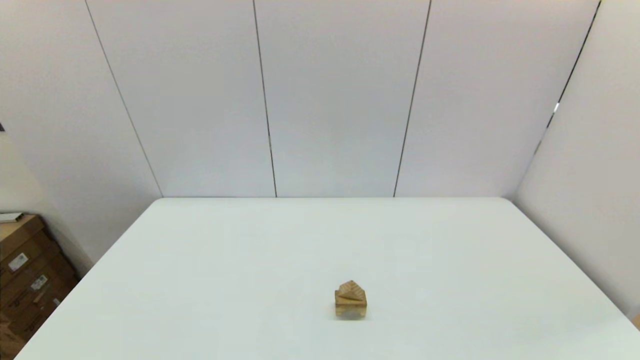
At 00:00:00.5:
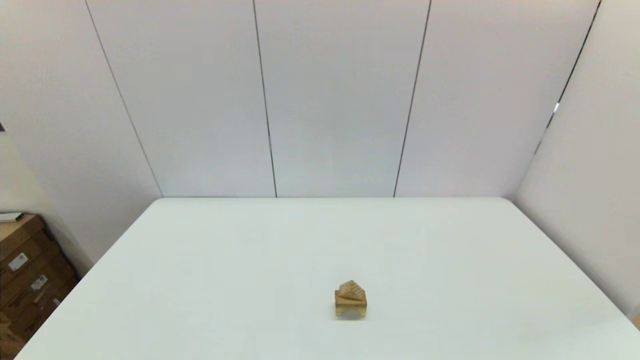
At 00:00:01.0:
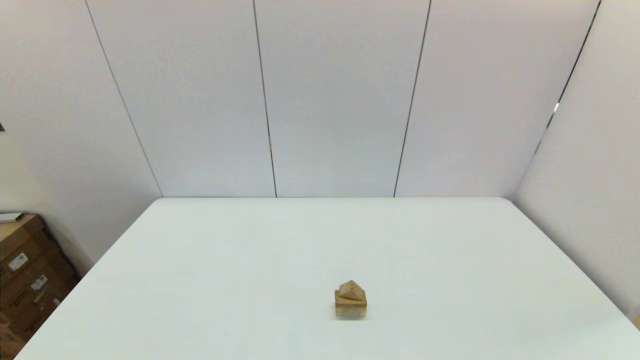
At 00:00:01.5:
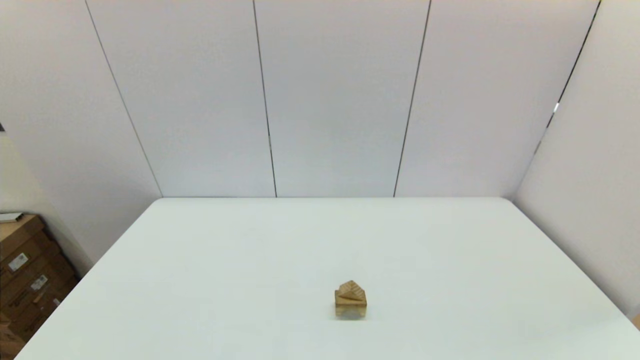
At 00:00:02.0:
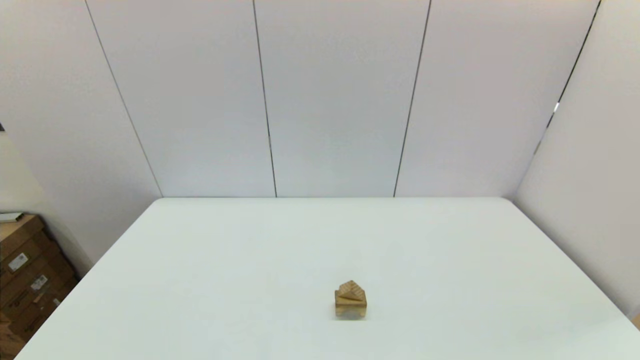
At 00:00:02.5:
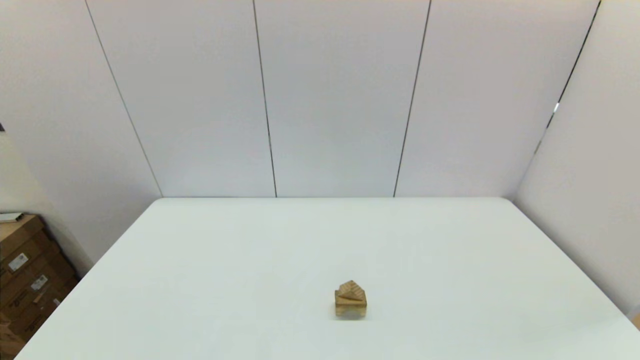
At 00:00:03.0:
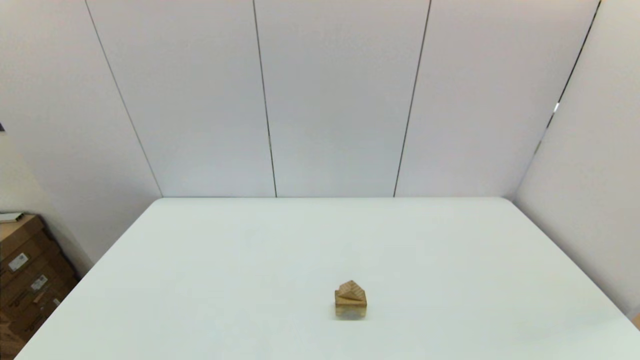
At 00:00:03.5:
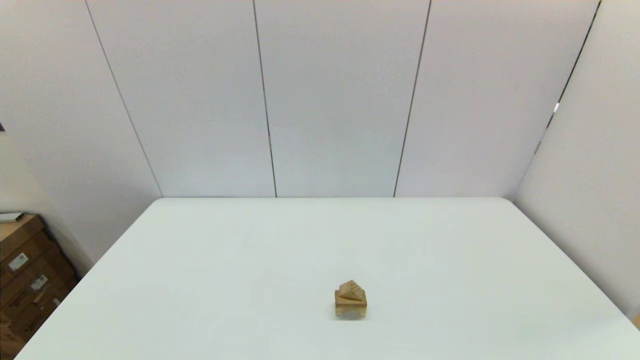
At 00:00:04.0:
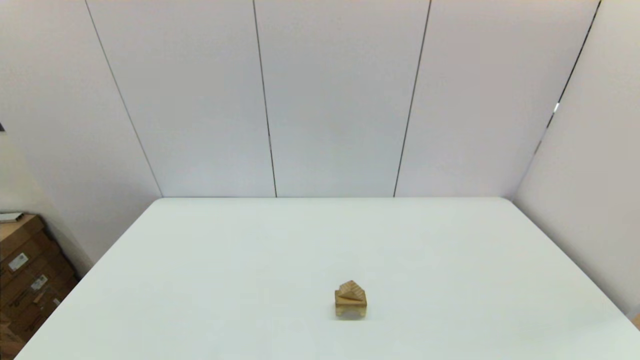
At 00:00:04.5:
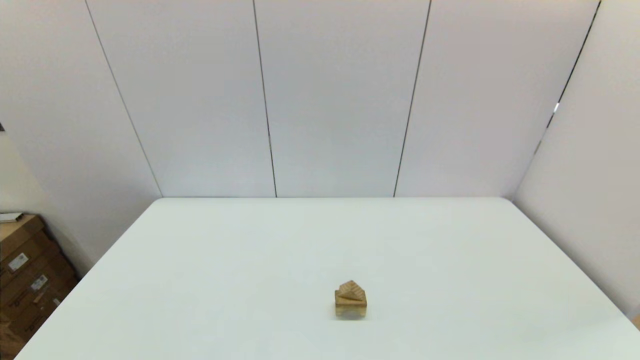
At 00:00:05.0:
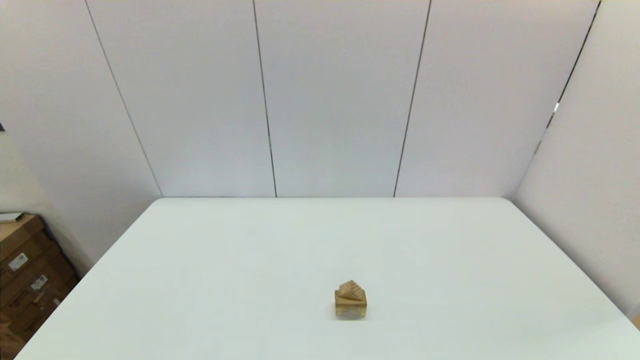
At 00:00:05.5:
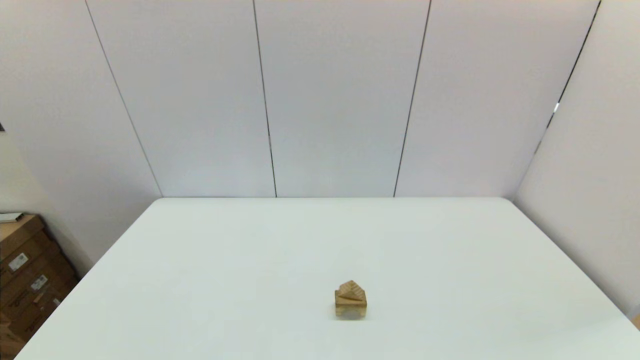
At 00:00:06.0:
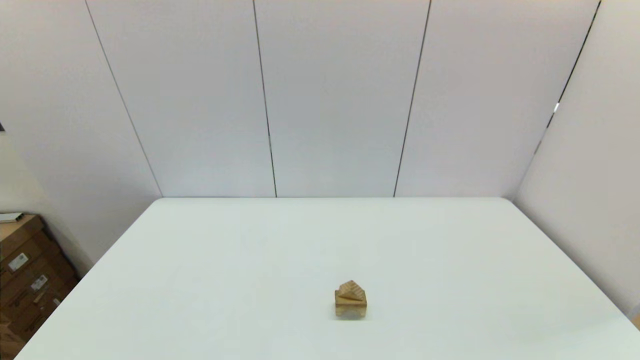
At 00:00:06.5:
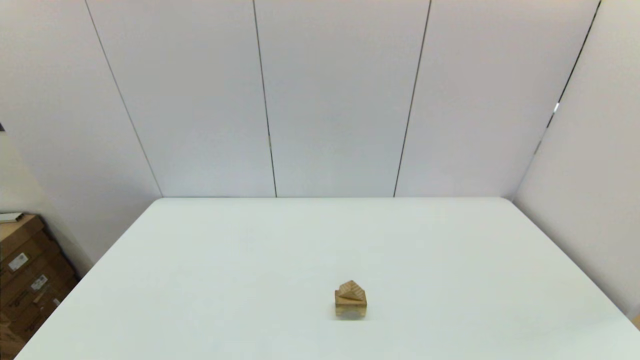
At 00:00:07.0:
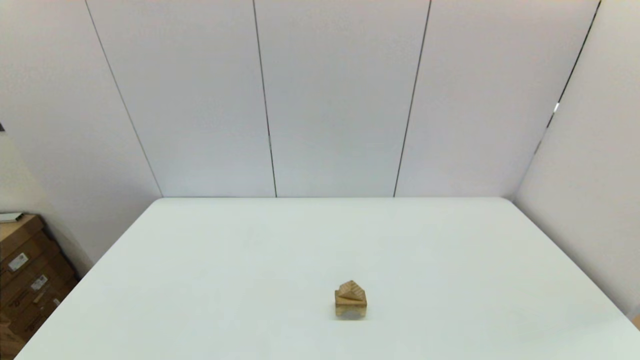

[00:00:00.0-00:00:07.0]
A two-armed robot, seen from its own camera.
Task of the whole recording: place the arched building blocks in the center of the table, set up the rectangular building blocks, and then set up the triangular building blocks.
00:00:02.0 to 00:00:07.0: Both grippers stay about where they are.

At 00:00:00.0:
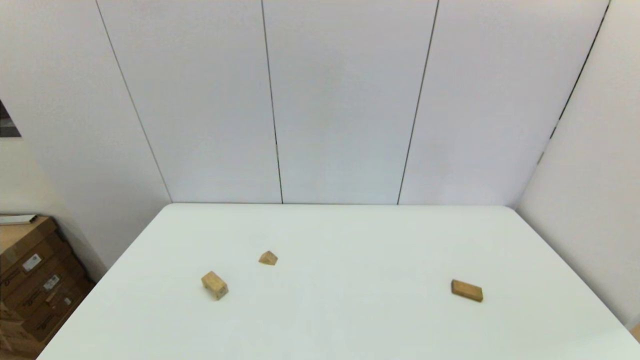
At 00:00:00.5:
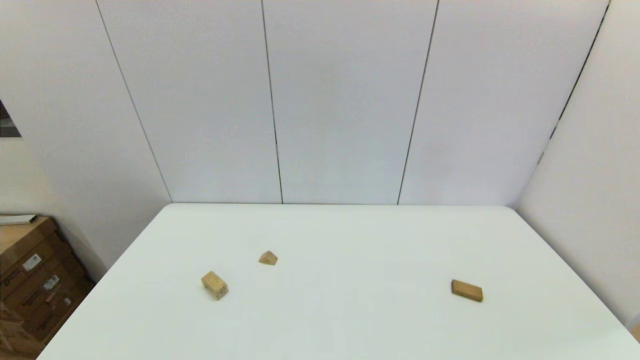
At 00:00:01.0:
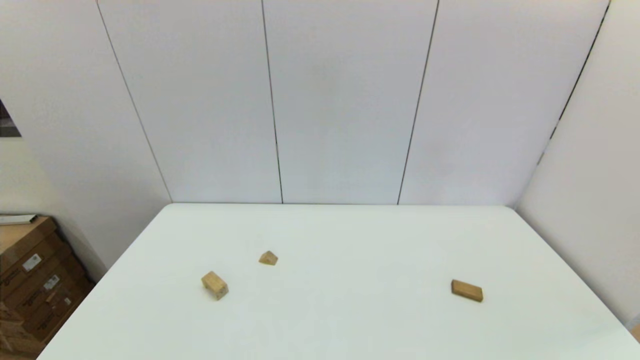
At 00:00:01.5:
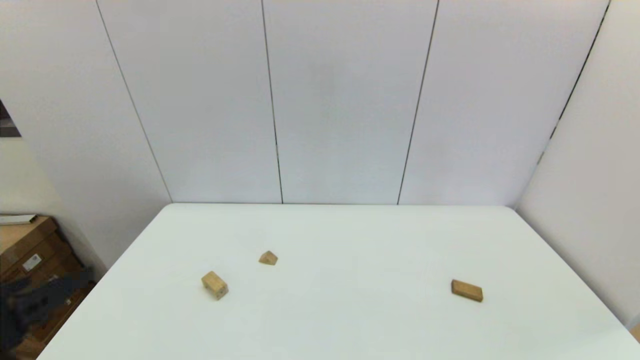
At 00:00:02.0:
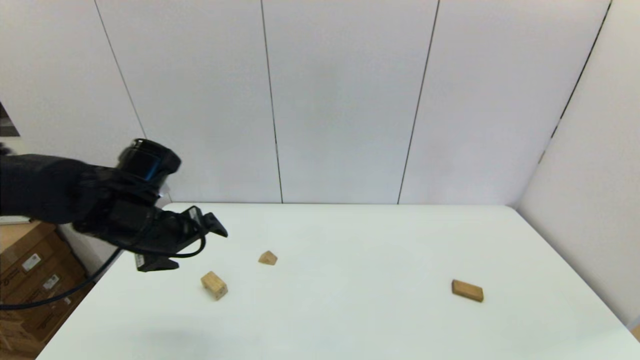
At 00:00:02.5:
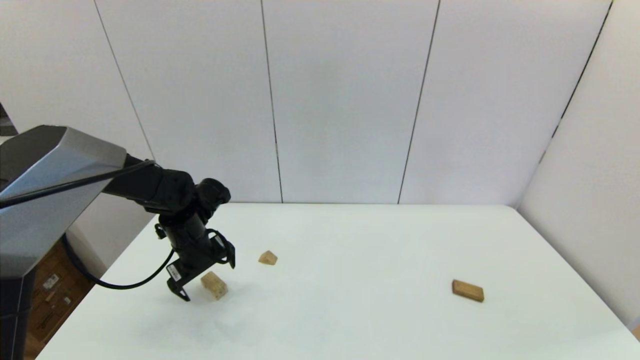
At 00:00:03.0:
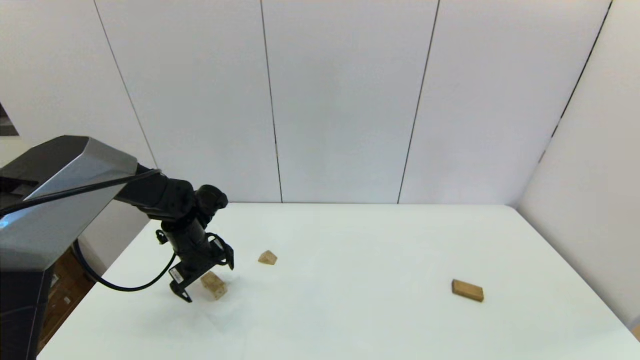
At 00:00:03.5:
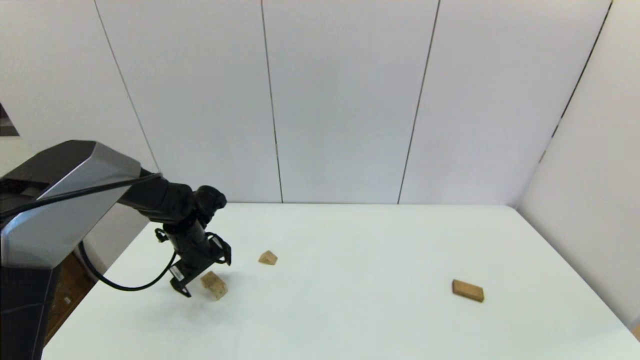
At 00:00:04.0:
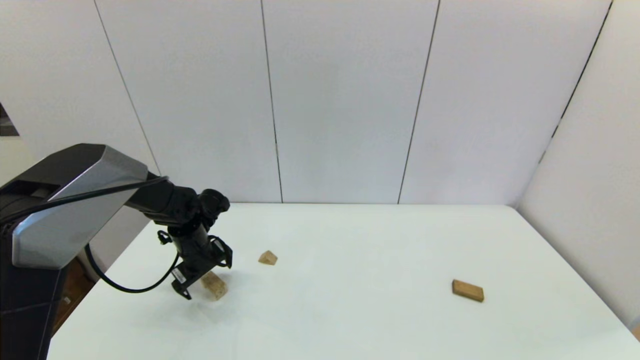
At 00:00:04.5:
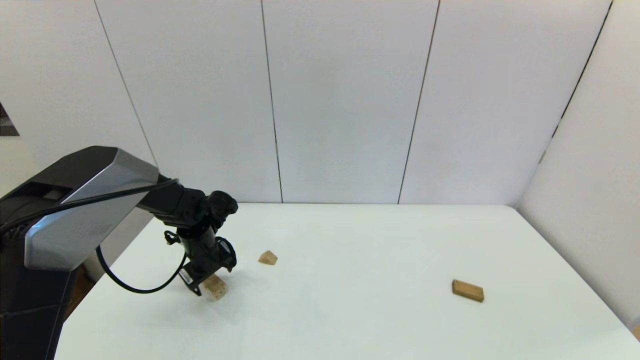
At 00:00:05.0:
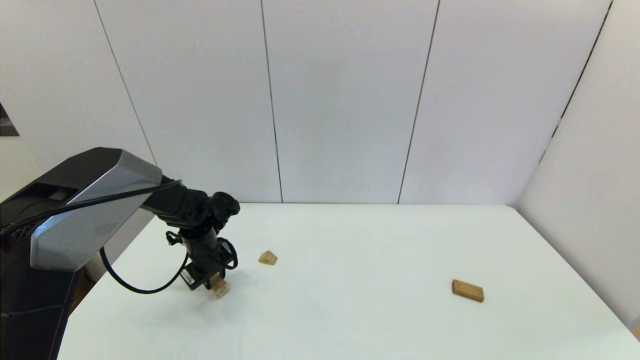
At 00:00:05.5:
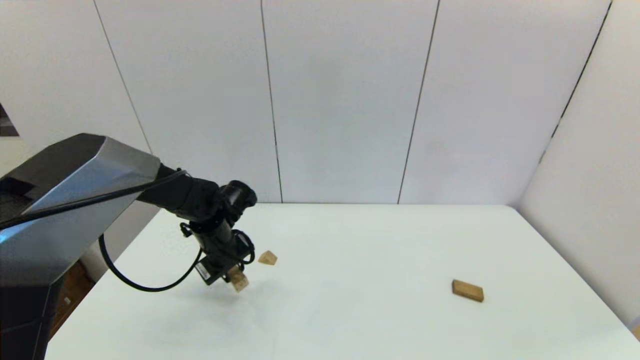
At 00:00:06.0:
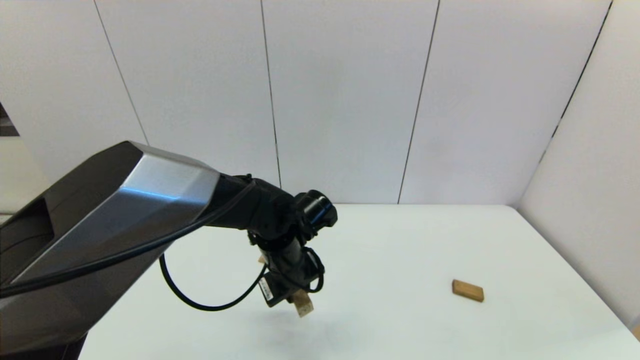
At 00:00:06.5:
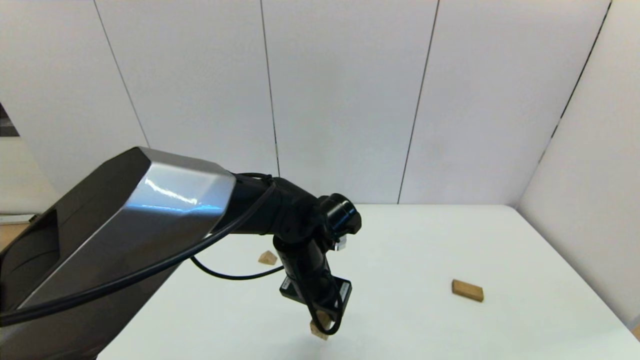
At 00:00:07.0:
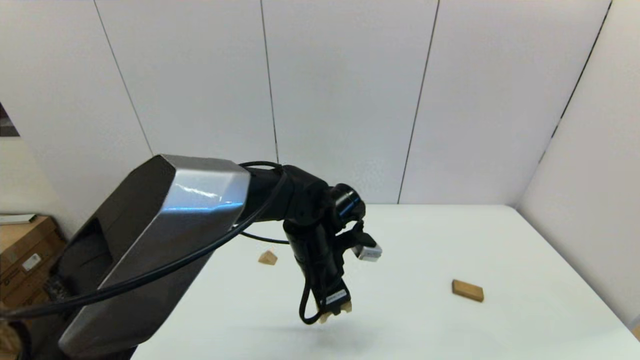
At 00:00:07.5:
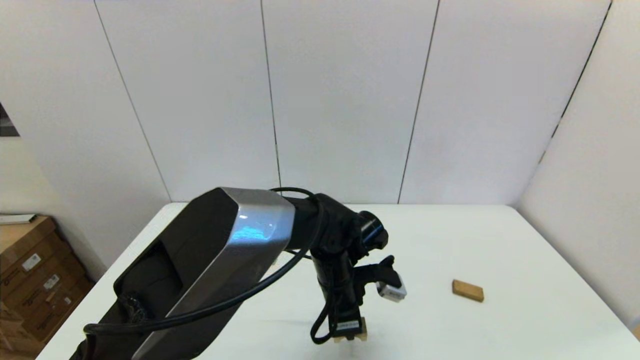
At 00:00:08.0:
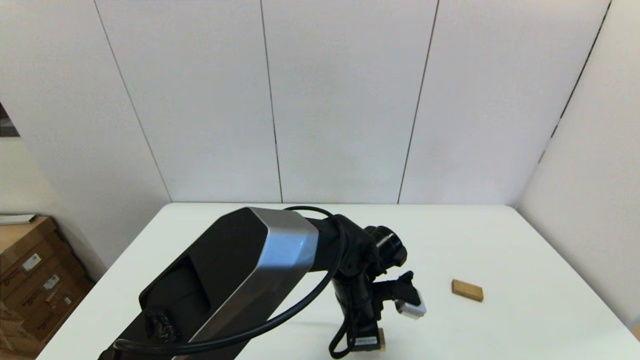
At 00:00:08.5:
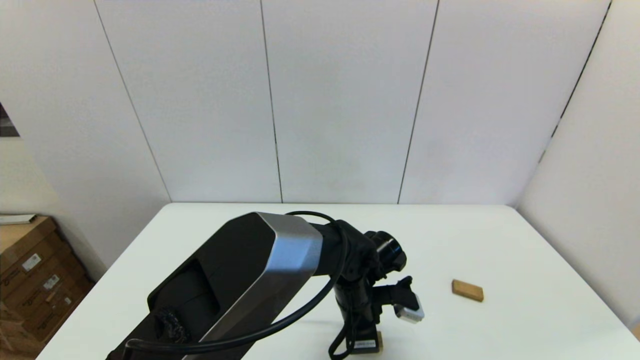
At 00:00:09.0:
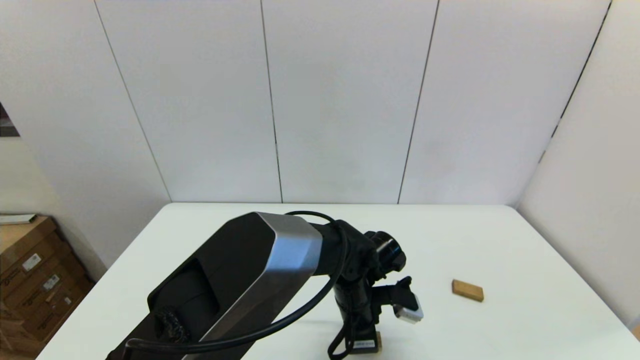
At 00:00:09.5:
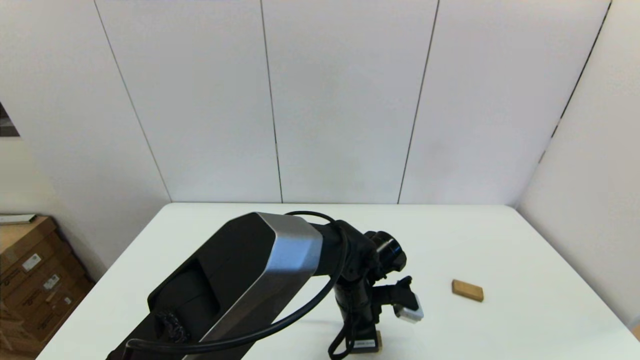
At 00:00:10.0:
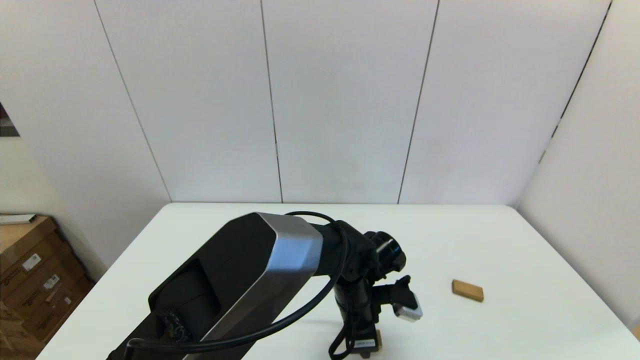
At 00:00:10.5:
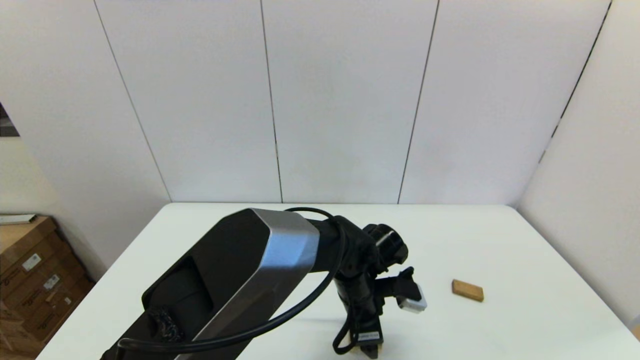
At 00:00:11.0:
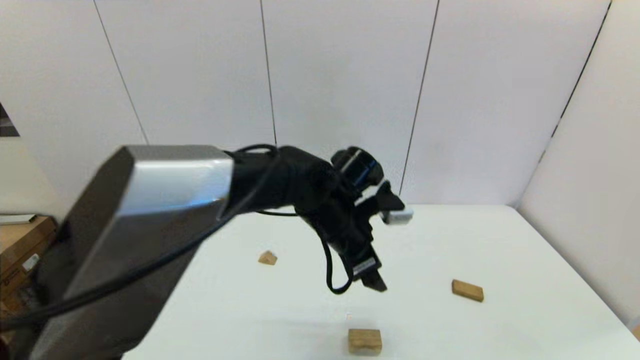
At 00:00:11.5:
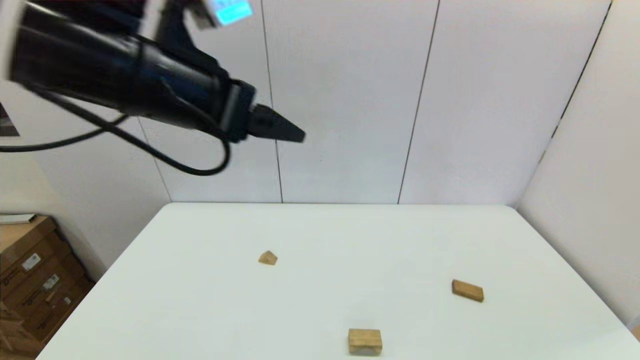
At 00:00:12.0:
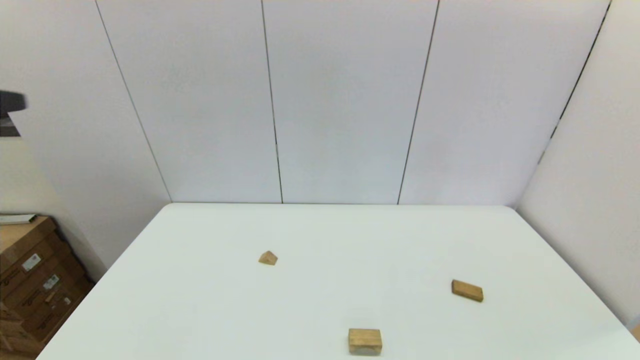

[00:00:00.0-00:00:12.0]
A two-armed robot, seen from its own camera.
Task of the whole recording: place the arched building blocks in the center of the table, set up the rectangular building blocks, and then set up the triangular building blocks.
Step, 00:00:01.5 to 00:00:04.5: Grasp the arch-shaped block with the left gripper.
Step, 00:00:05.0 to 00:00:09.5: Place the arch-shaped block in the center of view with the left gripper.
00:00:00.0 to 00:00:02.0: The left gripper shifts some 30 cm forward.
00:00:02.0 to 00:00:04.0: The left gripper shifts some 15 cm downward and forward.
00:00:04.0 to 00:00:06.0: The left gripper is displaced to the right and backward by some 20 cm, and closes up.
00:00:06.0 to 00:00:08.0: The left gripper goes some 10 cm to the right and downward.
00:00:08.0 to 00:00:10.0: Both grippers stay about where they are.
00:00:10.0 to 00:00:12.0: The left gripper travels upward, to the left and backward by approximately 50 cm, and opens up.

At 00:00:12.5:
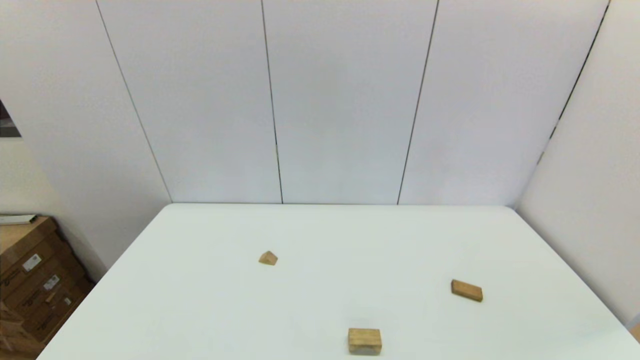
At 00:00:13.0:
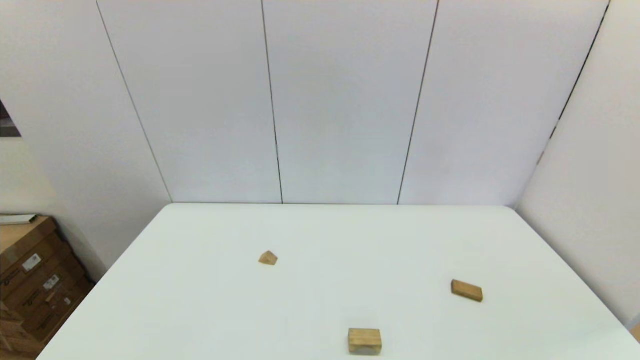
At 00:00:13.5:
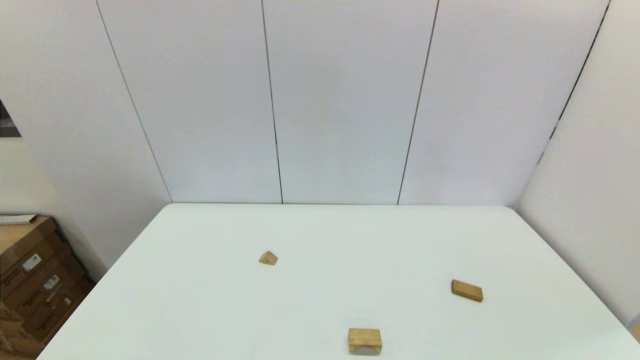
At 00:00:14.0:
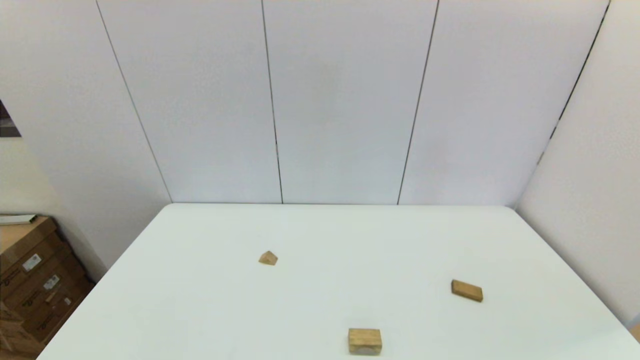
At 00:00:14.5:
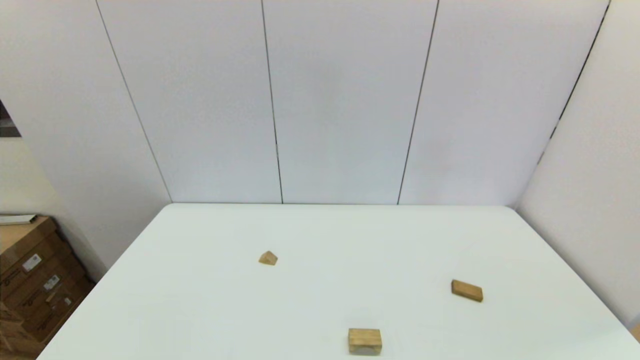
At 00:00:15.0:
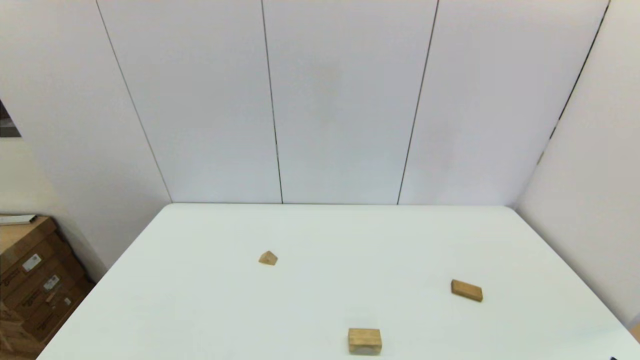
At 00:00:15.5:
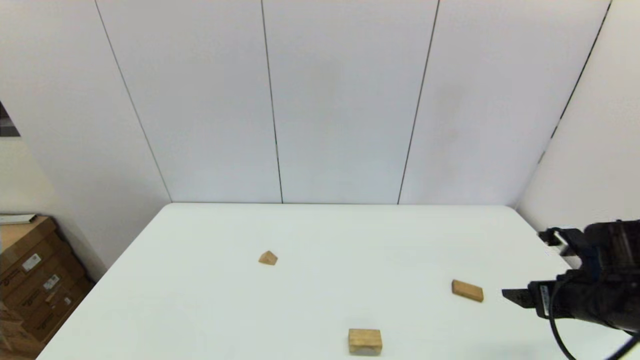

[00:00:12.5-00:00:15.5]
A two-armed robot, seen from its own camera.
Task of the whole recording: place the arched building blocks in the center of the table, set up the rectangular building blocks, and then set up the triangular building blocks.
00:00:14.0 to 00:00:15.5: The right gripper moves forward, some 25 cm.
